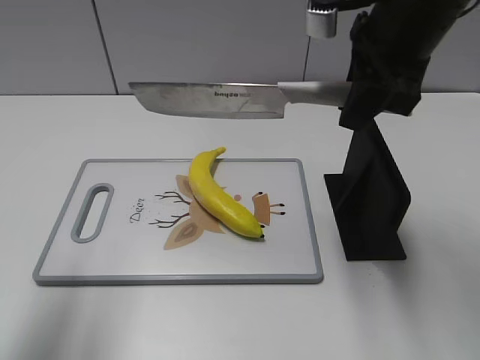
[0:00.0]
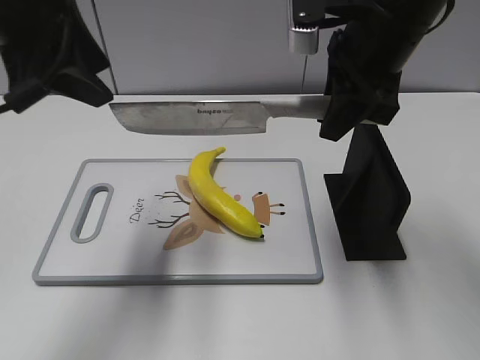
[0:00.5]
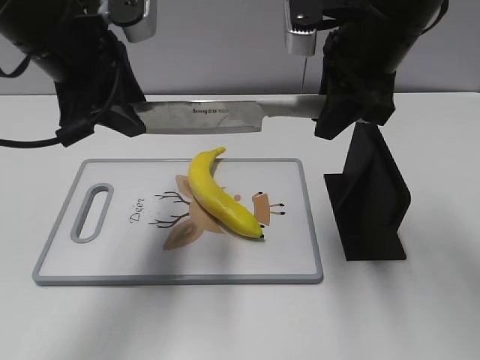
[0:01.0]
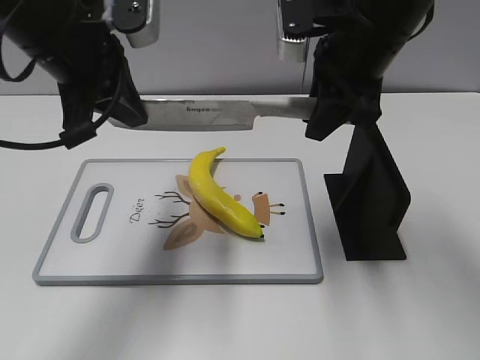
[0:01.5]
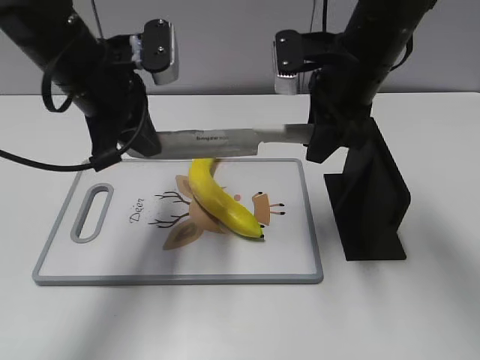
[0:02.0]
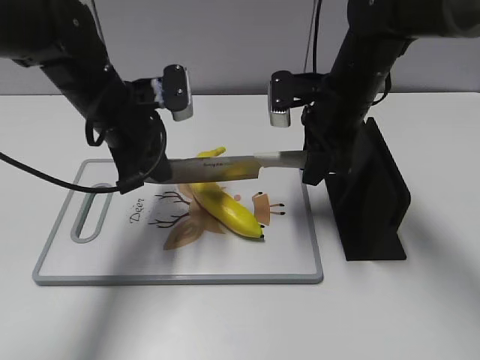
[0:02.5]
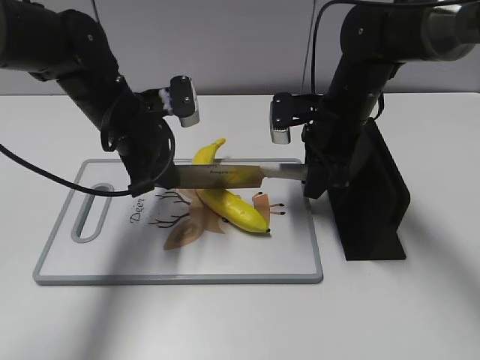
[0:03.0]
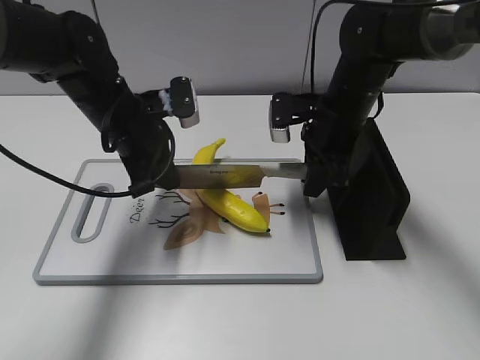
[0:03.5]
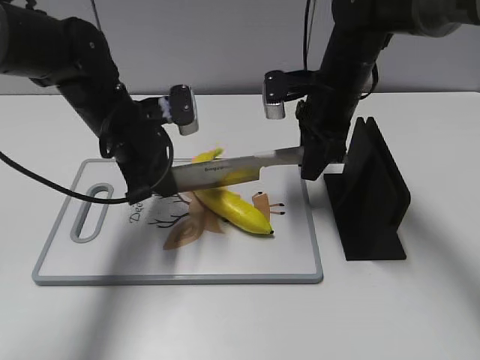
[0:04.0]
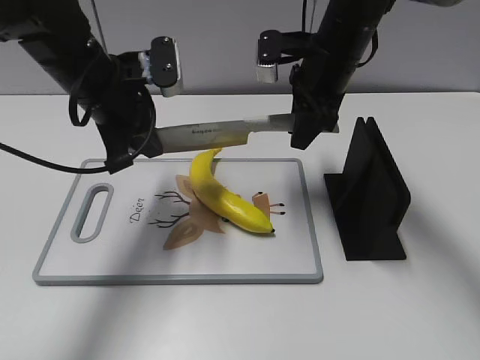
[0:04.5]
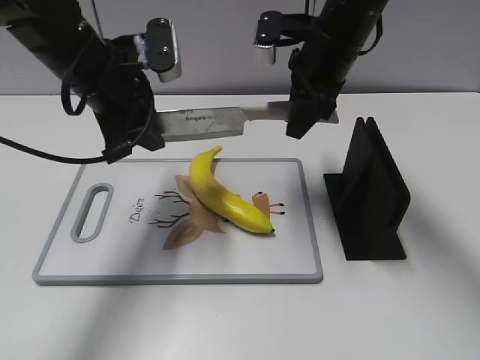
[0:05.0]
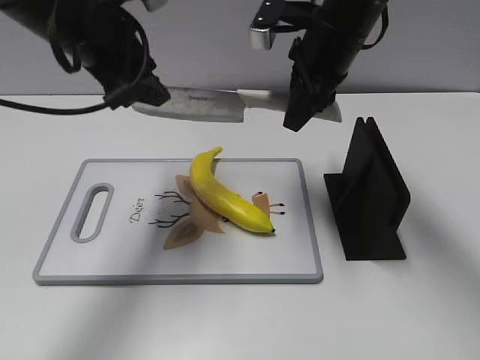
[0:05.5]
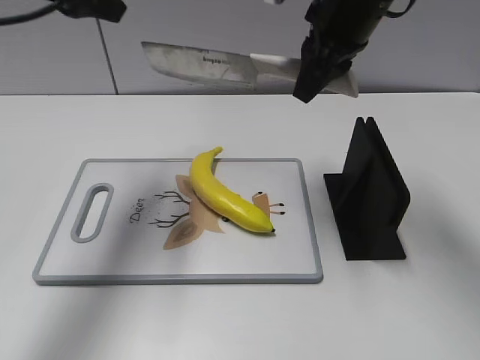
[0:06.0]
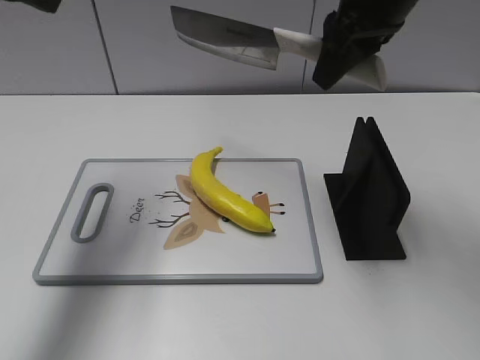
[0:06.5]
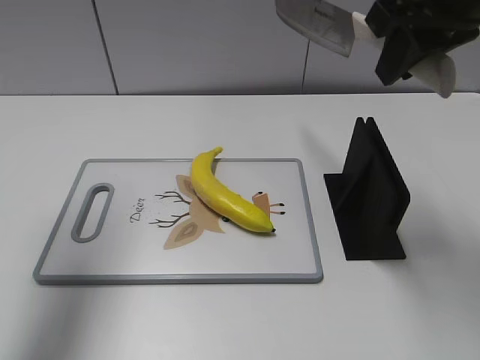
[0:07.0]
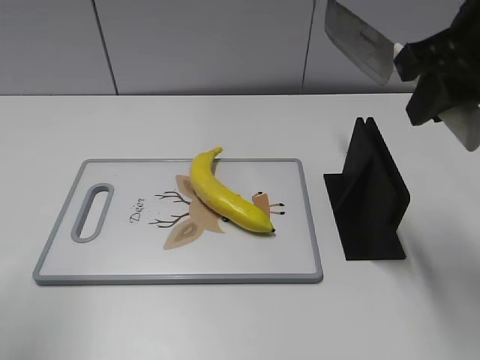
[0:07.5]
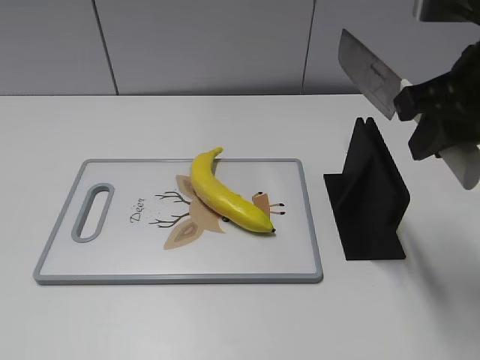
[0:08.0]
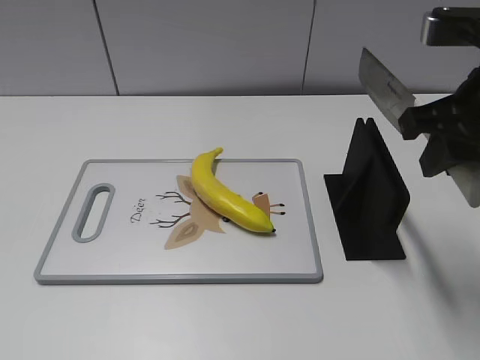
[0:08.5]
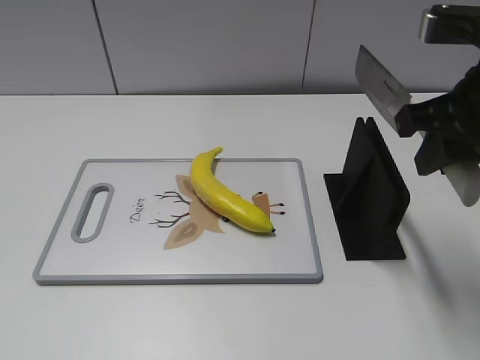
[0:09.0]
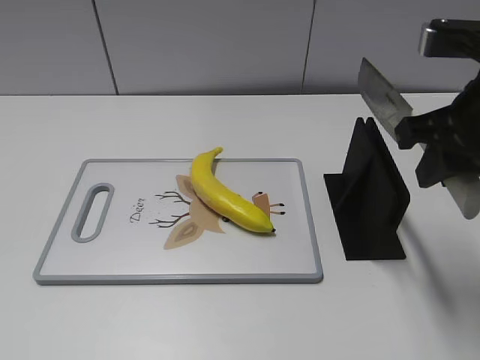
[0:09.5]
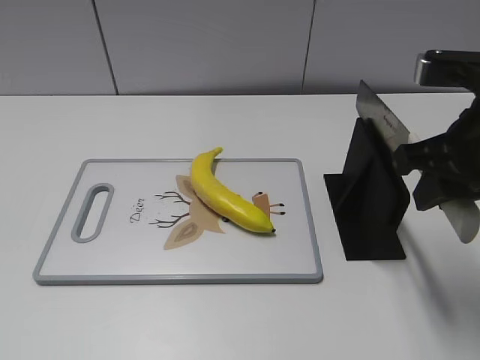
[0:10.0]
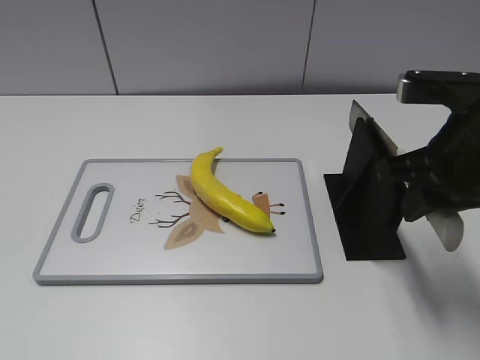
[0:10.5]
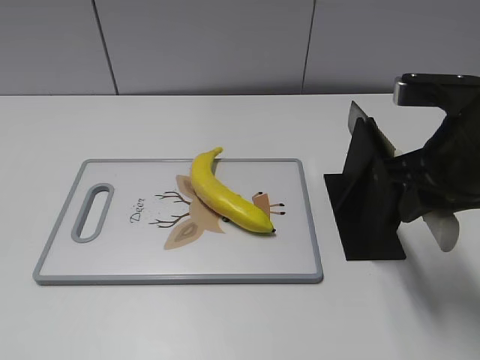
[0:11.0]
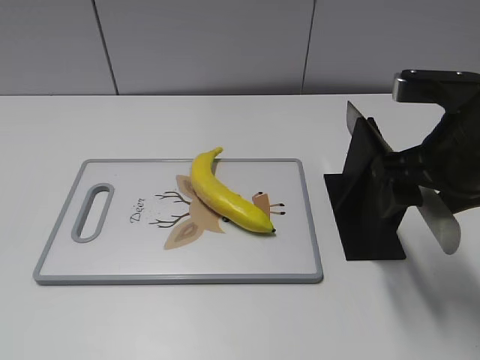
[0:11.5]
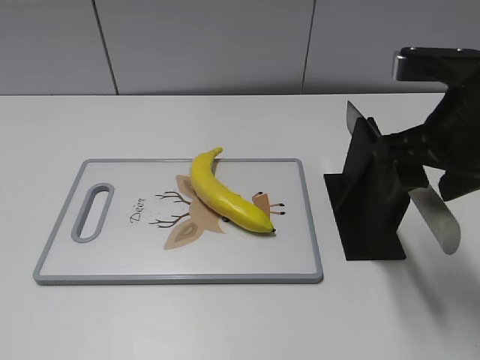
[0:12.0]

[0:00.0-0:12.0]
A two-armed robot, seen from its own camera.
Task of the whole recording: cut plastic banana.
Step, 0:00.0 to 0:03.5: Hold the blade with your left hand.
Step, 0:04.5 to 0:05.5: Cut the banana with your right hand.
Step, 0:06.0 to 0:08.0: Secure the blade with your left hand.
0:00.0 to 0:02.0: The left gripper is displaced forward, to the right and downward by some 20 cm, and closes up; the right gripper goes roughly 5 cm downward.
0:02.0 to 0:04.0: The two grippers go about 10 cm downward.
0:04.0 to 0:06.0: The right gripper goes approximately 10 cm upward. Meanwhile the left gripper goes some 20 cm upward, and opens.
0:06.0 to 0:08.0: The right gripper shifts approximately 15 cm backward and to the right. Meanwhile the left gripper travels backward and to the left by roughly 35 cm.
0:10.0 to 0:12.0: The right gripper opens its fingers.

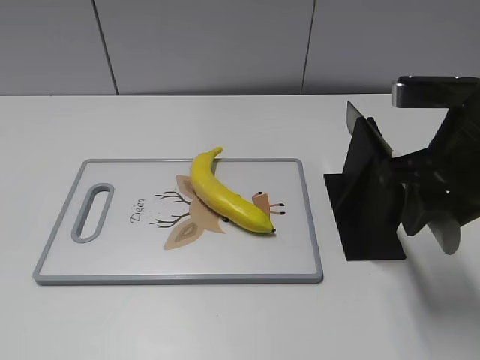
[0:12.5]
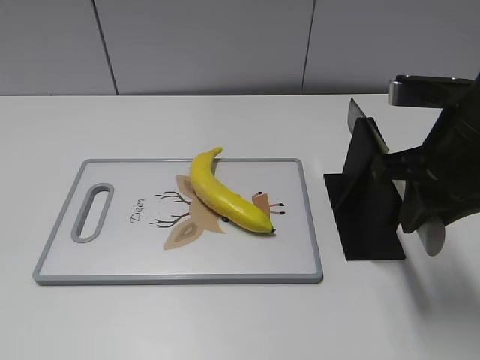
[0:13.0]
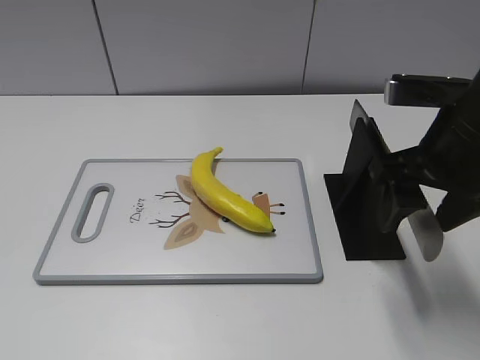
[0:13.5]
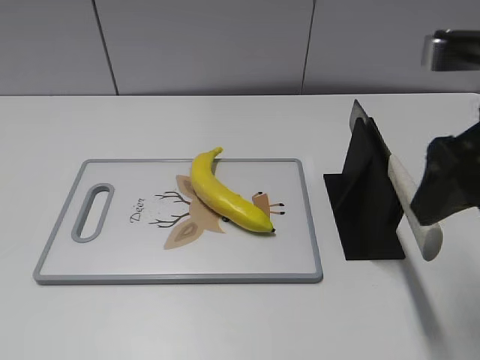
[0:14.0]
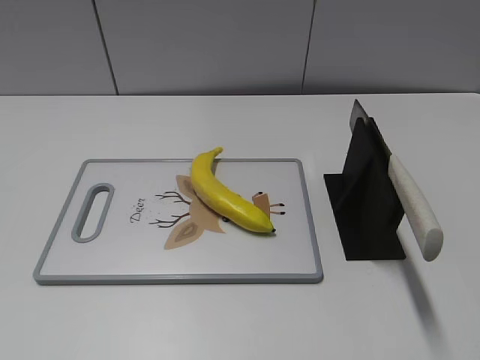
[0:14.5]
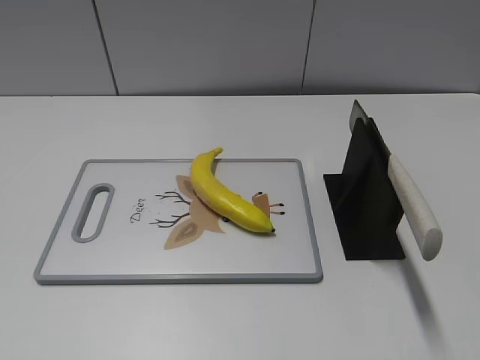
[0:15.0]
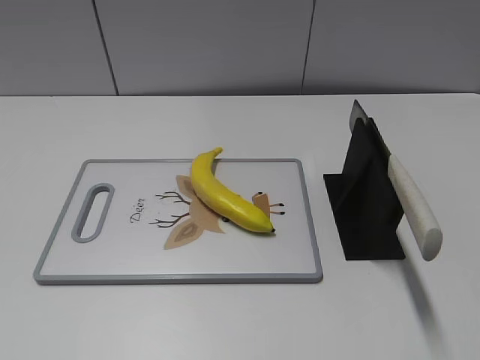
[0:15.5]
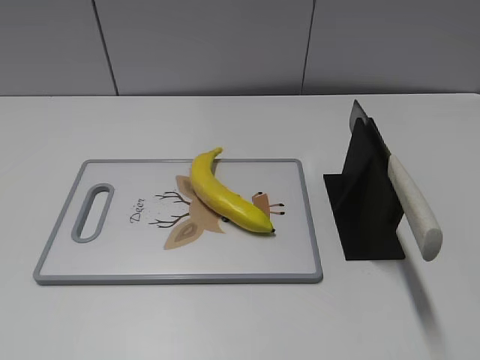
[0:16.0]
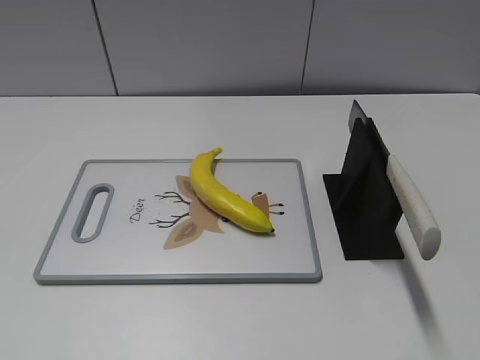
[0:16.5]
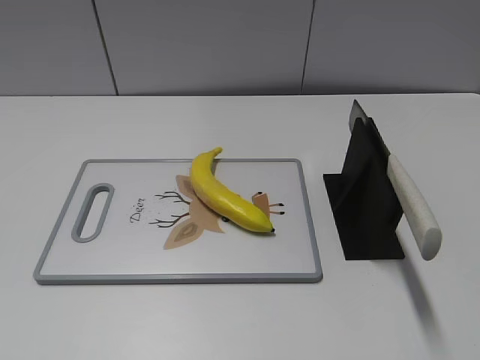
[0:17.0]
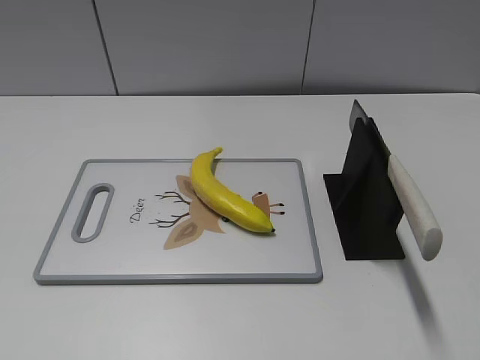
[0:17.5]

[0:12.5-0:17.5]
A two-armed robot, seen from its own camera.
Task of the whole recording: cut plastic banana.
Step, 0:12.5 to 0:16.0: Place the knife on the storage rack with your right hand.
0:12.5 to 0:15.0: The right gripper is displaced backward by some 20 cm, and opens up.

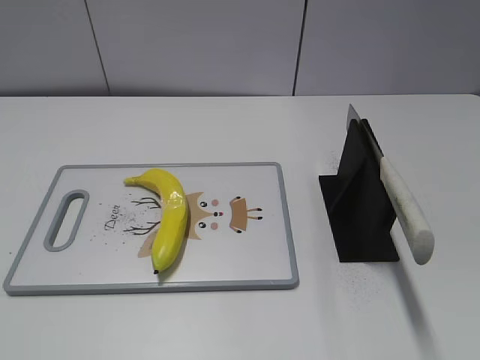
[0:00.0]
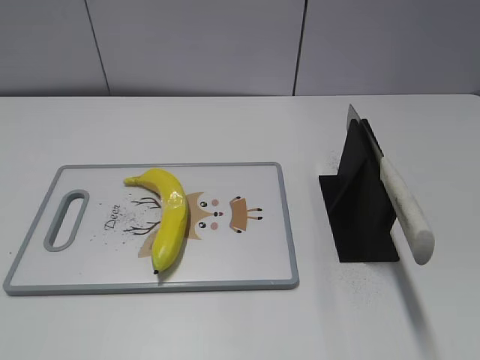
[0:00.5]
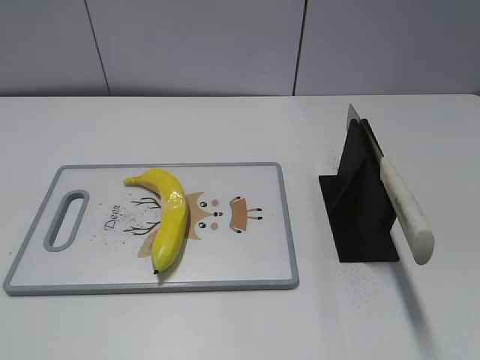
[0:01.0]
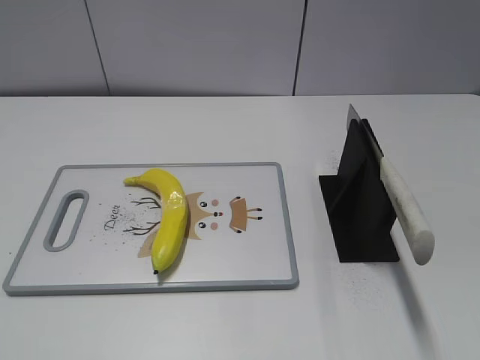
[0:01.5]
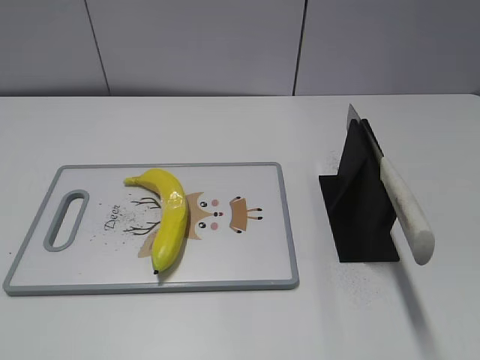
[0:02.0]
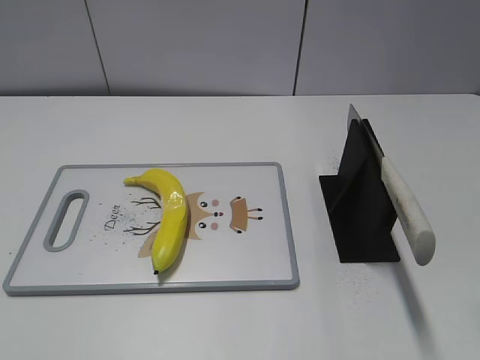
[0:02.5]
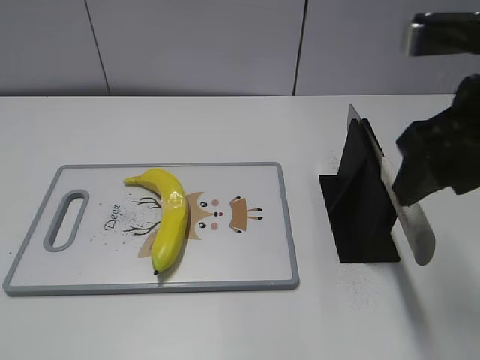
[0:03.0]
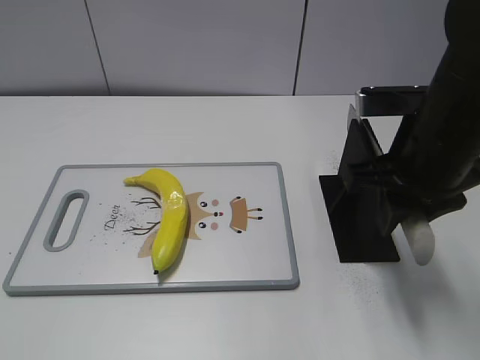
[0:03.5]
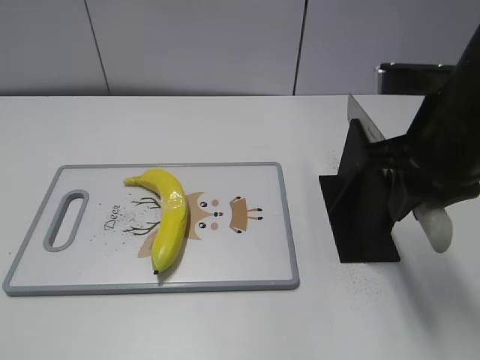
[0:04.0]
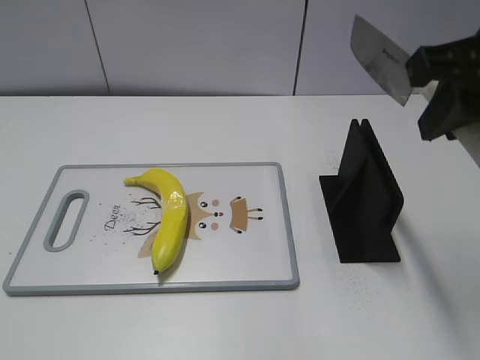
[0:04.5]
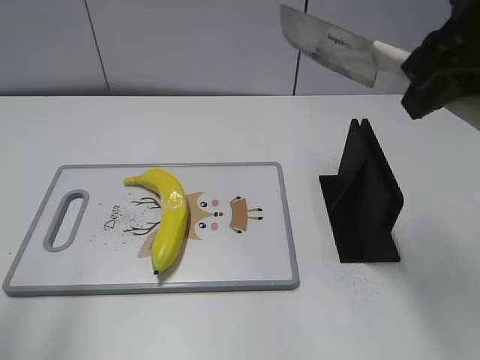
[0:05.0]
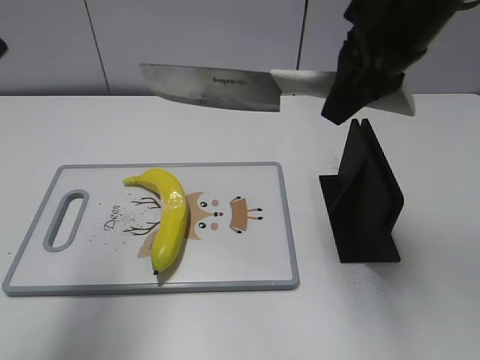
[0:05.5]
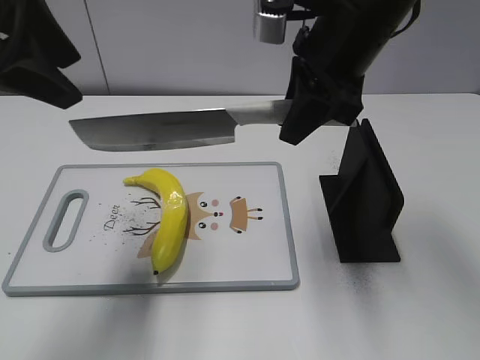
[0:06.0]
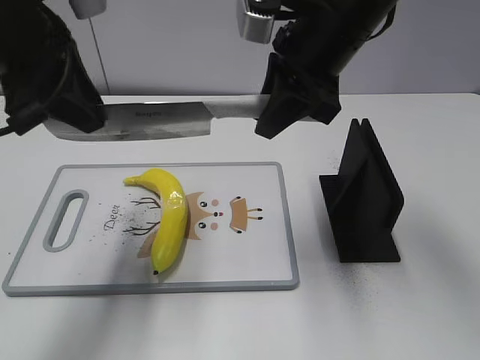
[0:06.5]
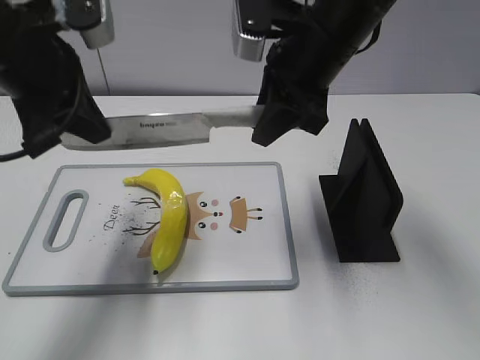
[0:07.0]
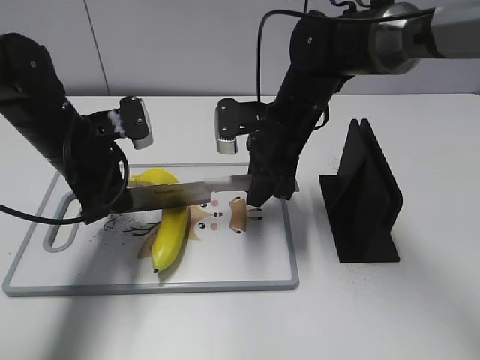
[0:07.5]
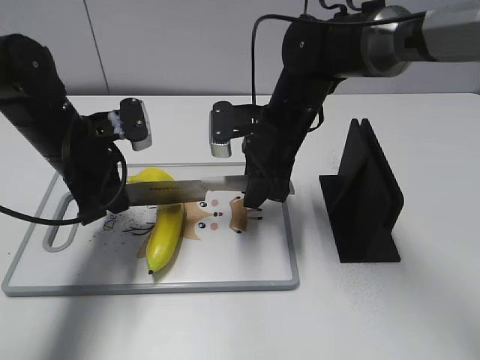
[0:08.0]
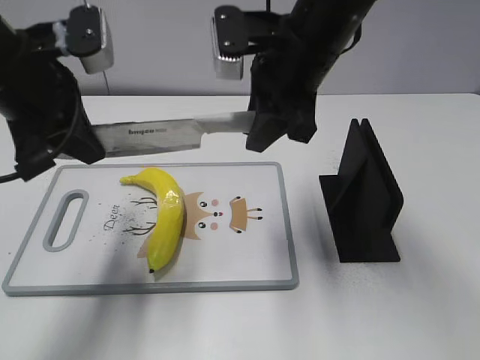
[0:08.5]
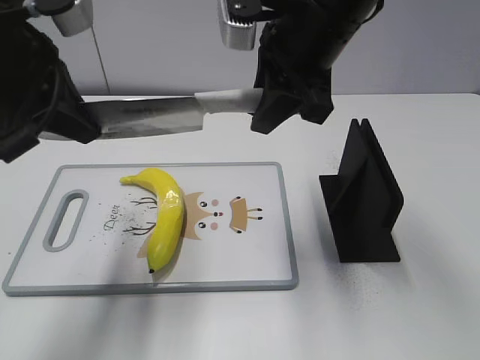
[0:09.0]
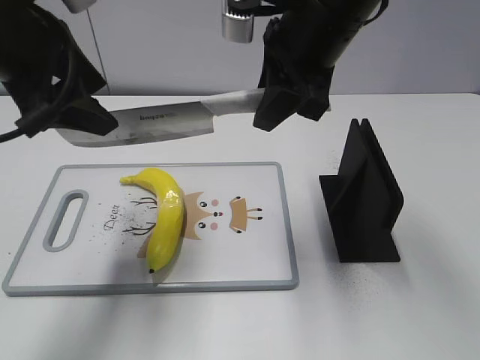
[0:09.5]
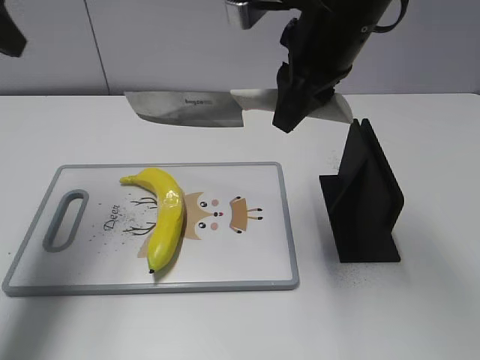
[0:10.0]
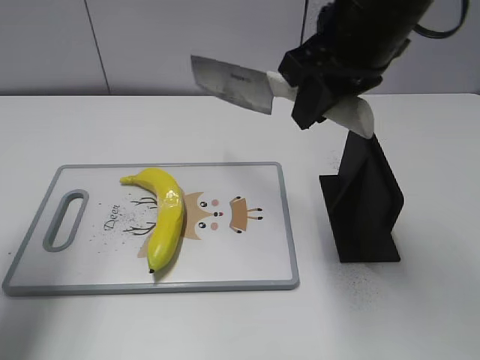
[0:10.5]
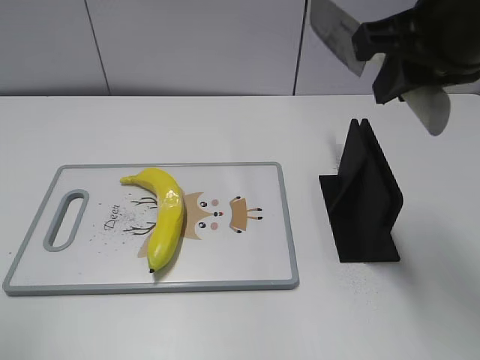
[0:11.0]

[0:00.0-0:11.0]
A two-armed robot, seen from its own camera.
Task of the whole recording: cut plastic banana.
Step, 0:00.0 to 0:04.5: Grab the knife handle with your right hand.
Step, 0:05.0 to 0:08.0: Lift the knife with your right hand.
0:02.0 to 0:03.5: The right gripper goes approximately 25 cm forward, to the left and downward, and closes up.
0:03.5 to 0:05.5: The left gripper heads forward and upward, covering some 25 cm; the right gripper travels upward by about 10 cm.
0:05.5 to 0:07.5: The left gripper goes approximately 25 cm downward and forward, and closes; the right gripper is displaced downward by approximately 20 cm.
0:07.5 to 0:09.0: The grippers both shift upward by about 15 cm.
0:09.0 to 0:11.0: The left gripper shifts about 20 cm backward and to the left, and opens. The right gripper travels to the right and backward by about 10 cm.
